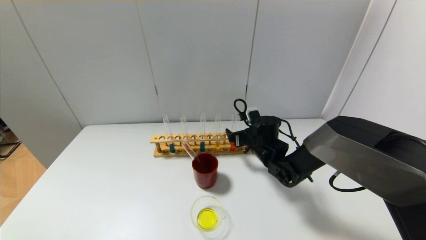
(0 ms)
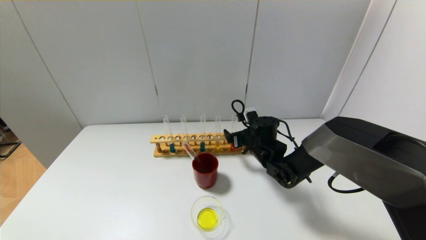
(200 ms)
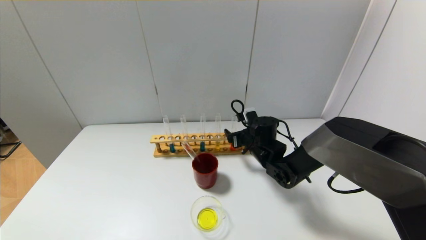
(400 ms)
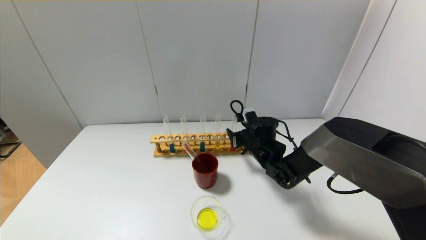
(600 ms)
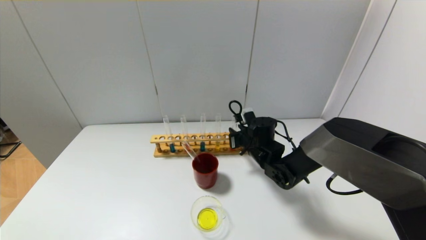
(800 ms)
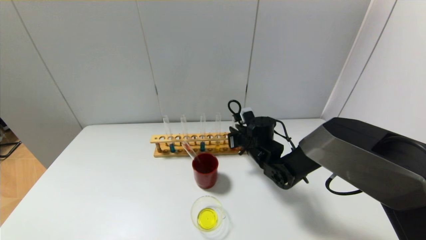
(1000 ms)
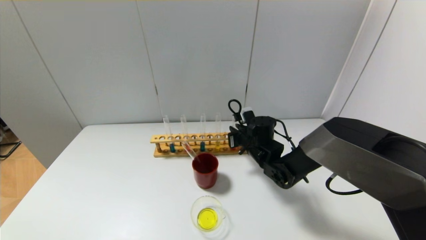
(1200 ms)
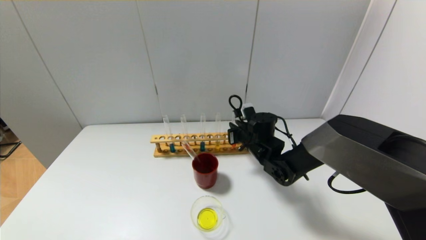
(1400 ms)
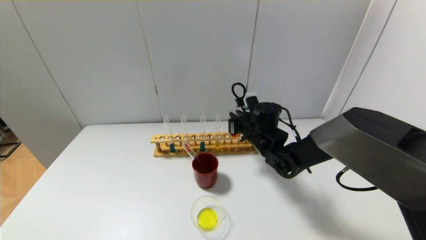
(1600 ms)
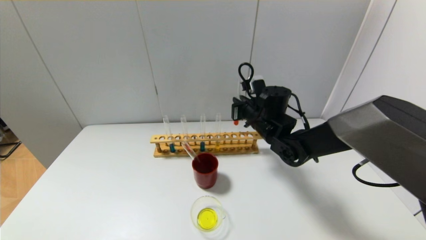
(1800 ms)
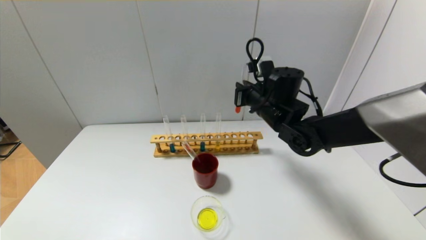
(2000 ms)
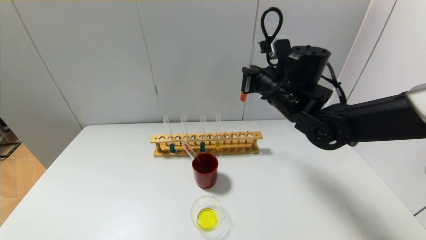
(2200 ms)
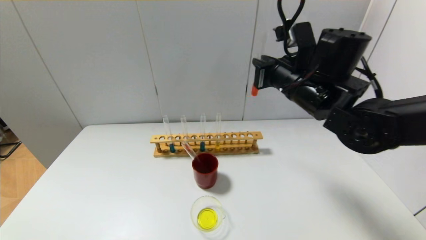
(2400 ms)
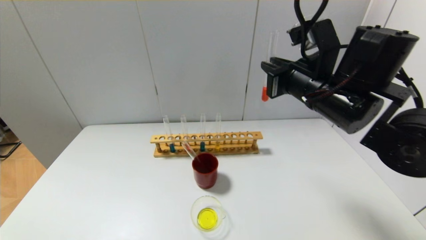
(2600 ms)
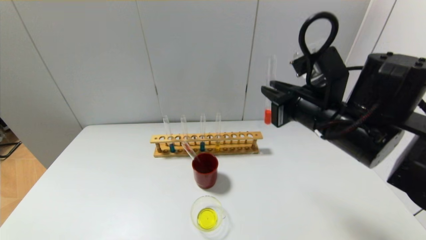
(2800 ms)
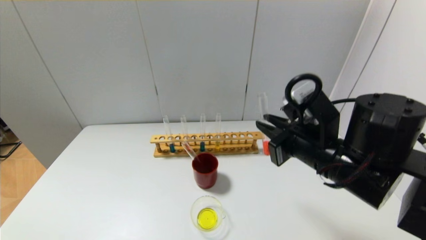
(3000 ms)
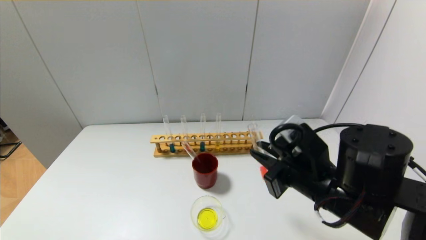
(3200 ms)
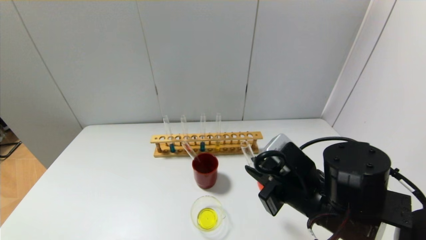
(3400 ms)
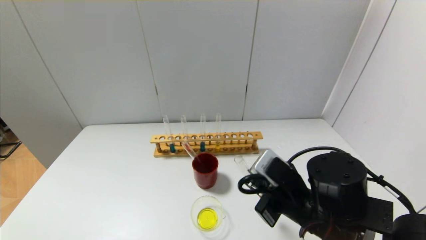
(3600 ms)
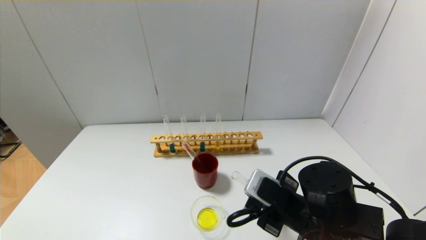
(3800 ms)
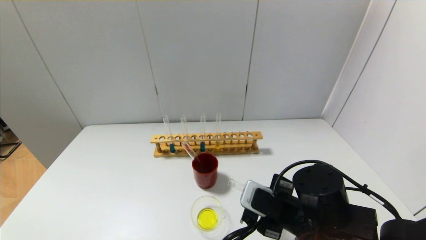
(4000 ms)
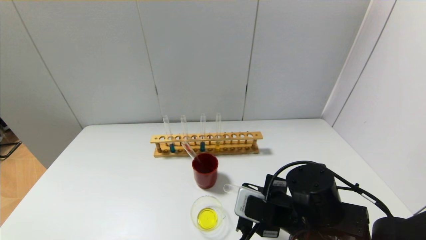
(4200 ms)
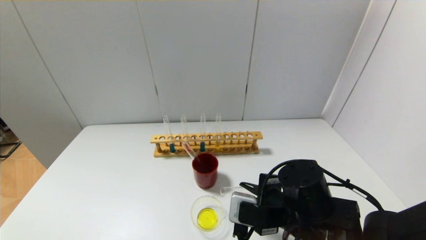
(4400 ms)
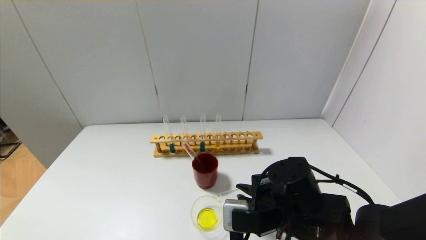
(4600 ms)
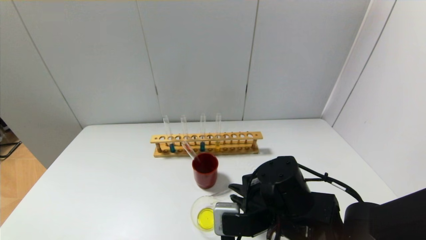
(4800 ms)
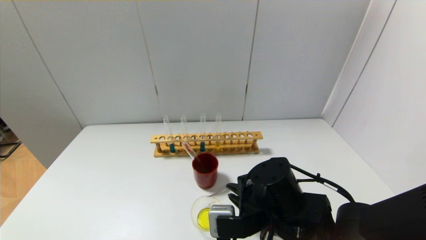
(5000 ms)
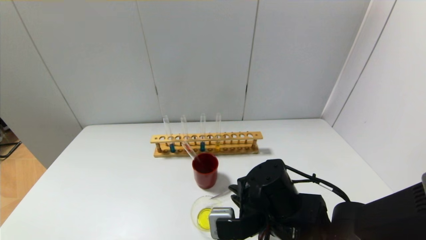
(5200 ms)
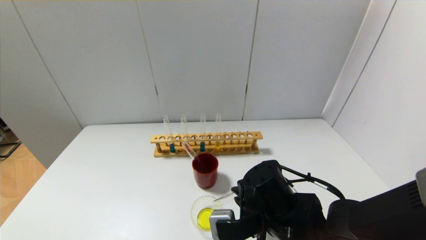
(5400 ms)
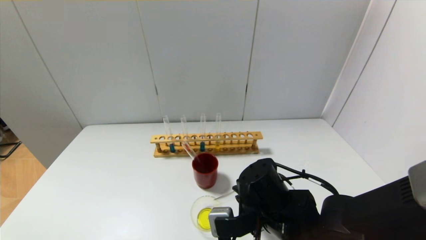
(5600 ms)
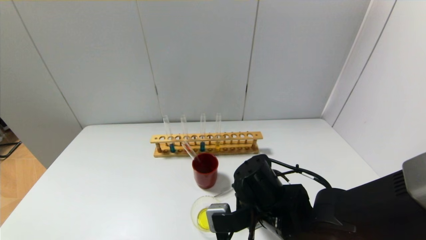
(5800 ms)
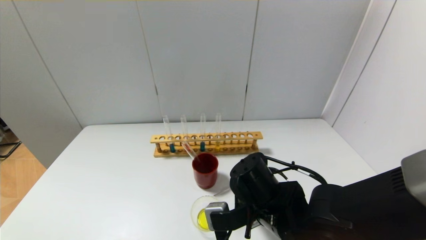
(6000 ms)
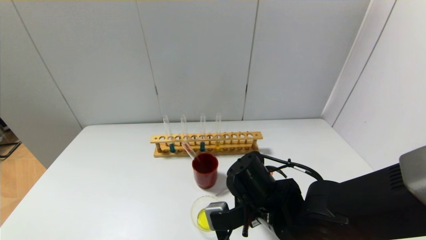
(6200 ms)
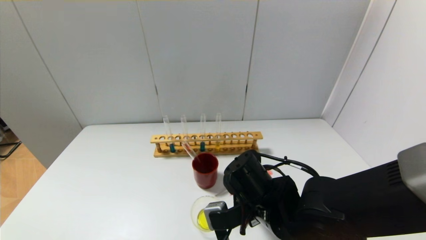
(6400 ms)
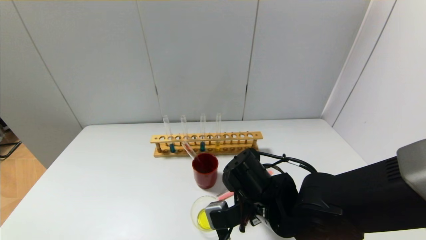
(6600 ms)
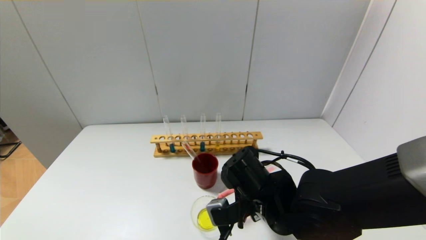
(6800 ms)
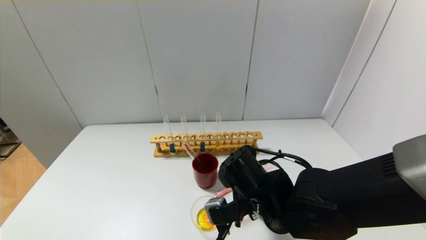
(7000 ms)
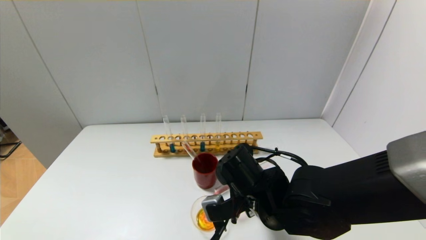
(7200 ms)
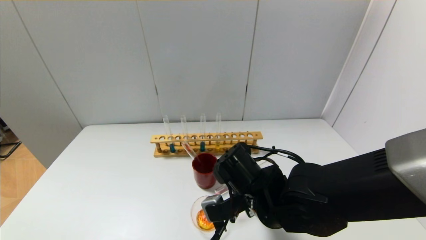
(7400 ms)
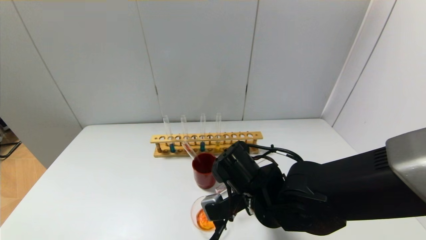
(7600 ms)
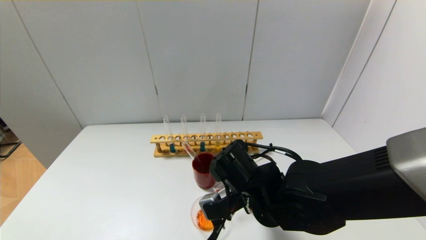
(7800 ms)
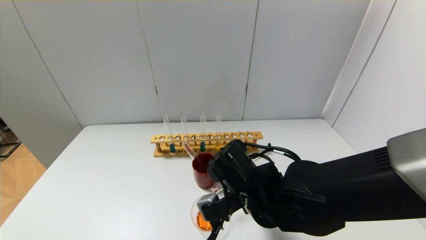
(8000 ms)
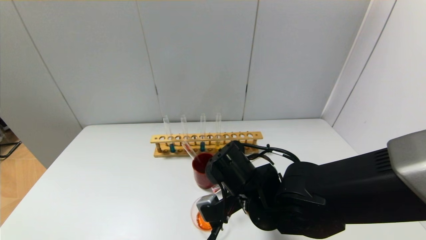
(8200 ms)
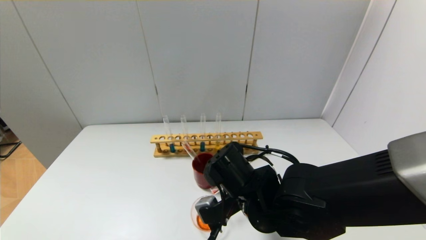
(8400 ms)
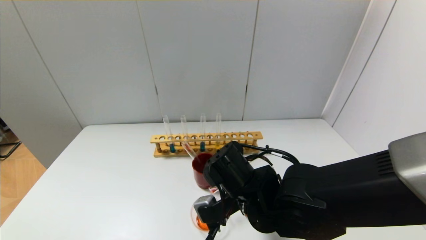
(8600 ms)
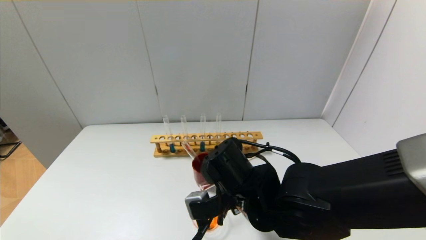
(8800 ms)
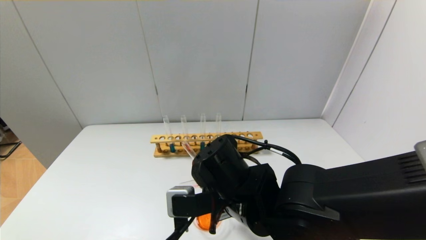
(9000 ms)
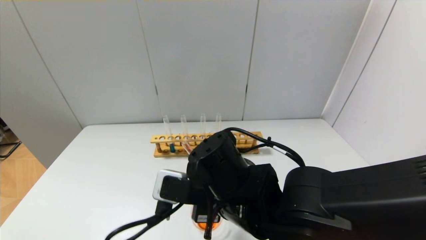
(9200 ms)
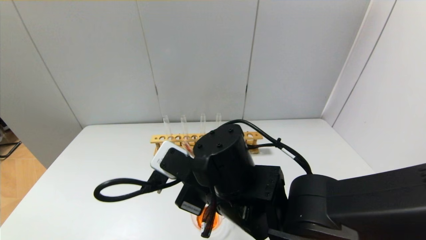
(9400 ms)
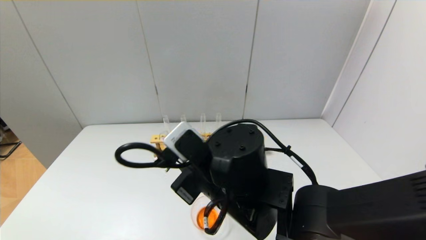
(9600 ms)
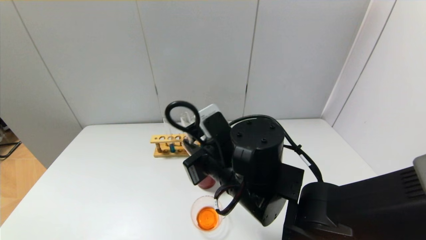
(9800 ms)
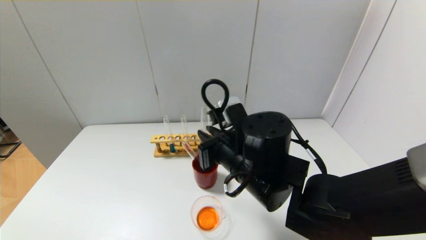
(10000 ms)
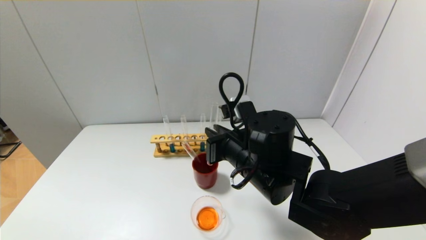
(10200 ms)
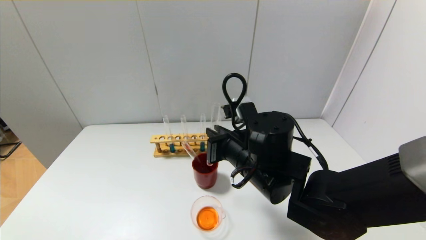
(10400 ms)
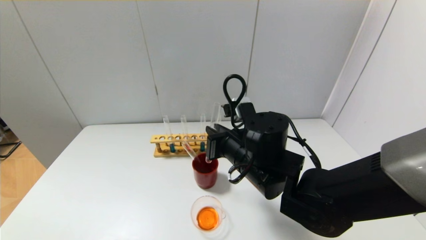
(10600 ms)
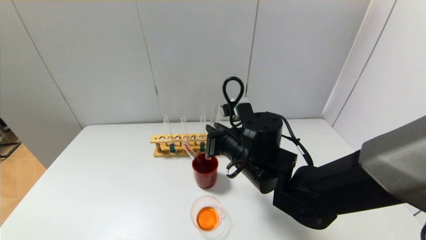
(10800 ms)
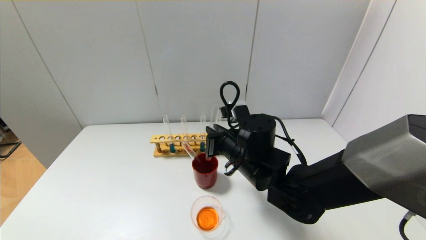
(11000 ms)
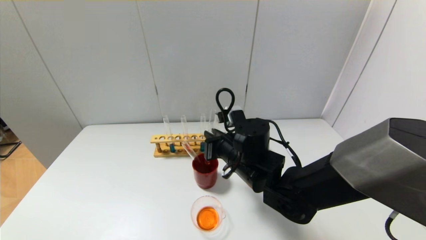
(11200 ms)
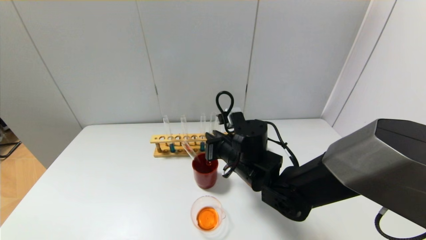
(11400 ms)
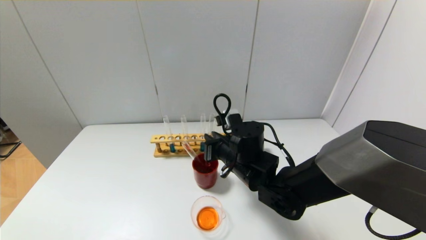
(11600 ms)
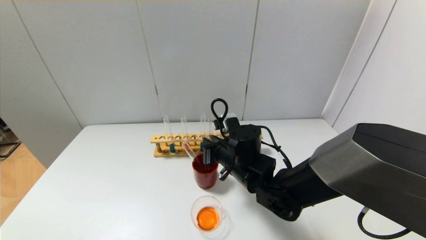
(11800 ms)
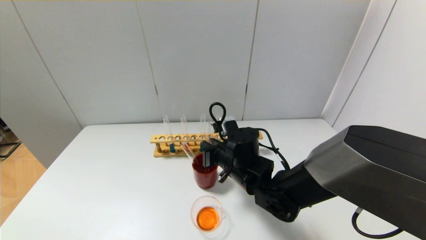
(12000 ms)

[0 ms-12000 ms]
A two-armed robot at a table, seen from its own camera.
Step, 1600 ms to 8400 ms: Pour the red reagent into the graduated cylinder with the right gripper.
0 ms to 1600 ms: The right gripper travels upward by approximately 5 cm, and closes.
1600 ms to 3000 ms: The right gripper shifts roughly 20 cm backward and upward.
3000 ms to 4400 ms: The right gripper travels downward by about 10 cm.
4400 ms to 6000 ms: The right gripper changes place by roughly 5 cm.
6000 ms to 7600 ms: The grippers stay close to where they were, moving slightly.
7600 ms to 9000 ms: The right gripper ends up roughly 5 cm from where it was.
9000 ms to 10400 ms: The right gripper changes place by roughly 5 cm.
10400 ms to 12000 ms: The right gripper heads downward and forward, covering approximately 10 cm.

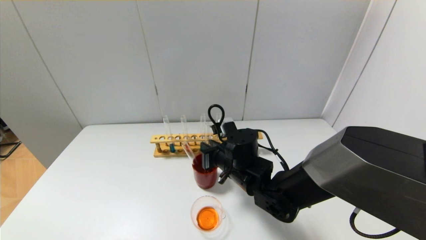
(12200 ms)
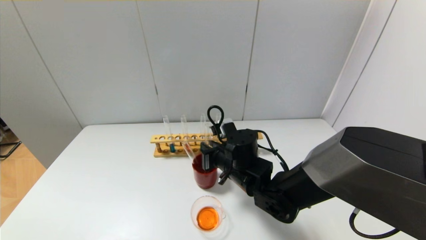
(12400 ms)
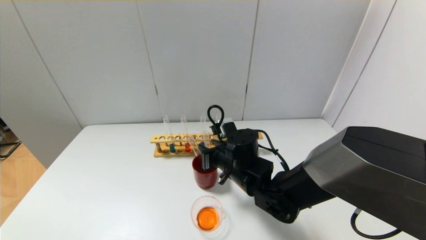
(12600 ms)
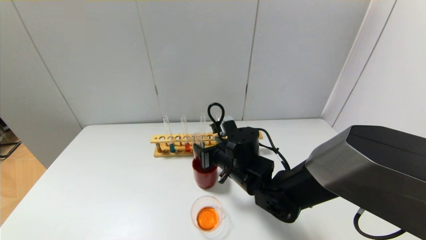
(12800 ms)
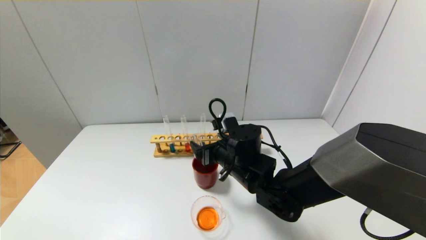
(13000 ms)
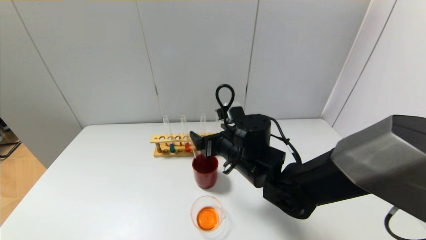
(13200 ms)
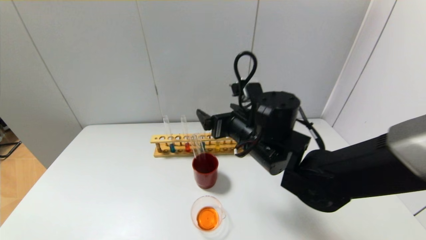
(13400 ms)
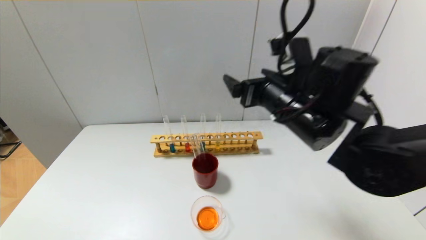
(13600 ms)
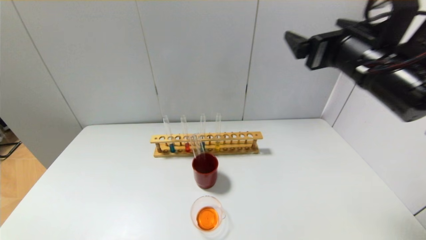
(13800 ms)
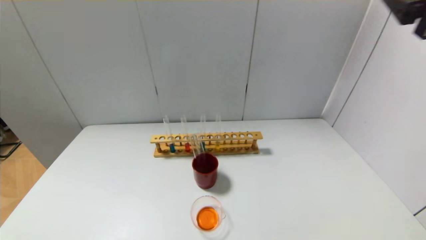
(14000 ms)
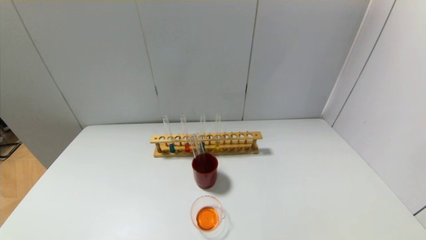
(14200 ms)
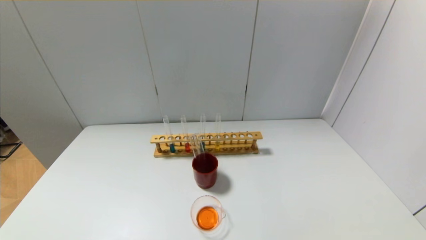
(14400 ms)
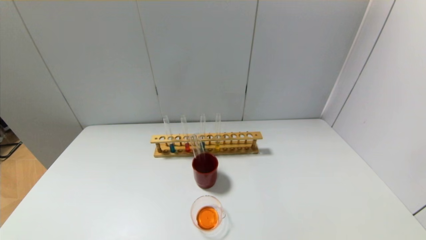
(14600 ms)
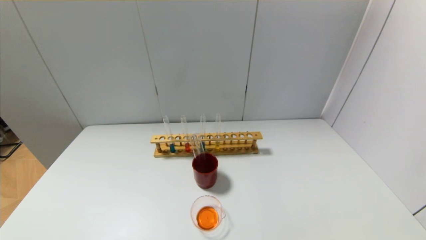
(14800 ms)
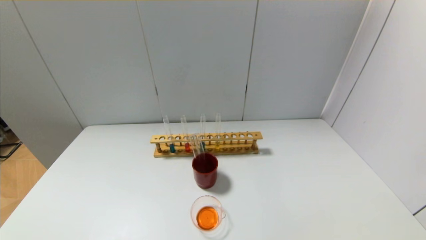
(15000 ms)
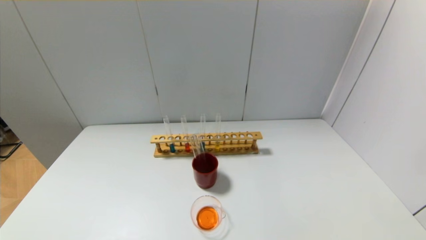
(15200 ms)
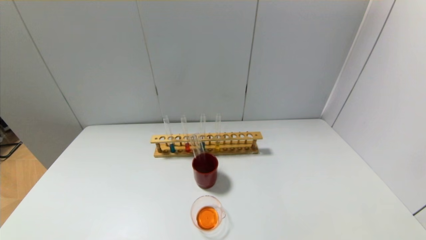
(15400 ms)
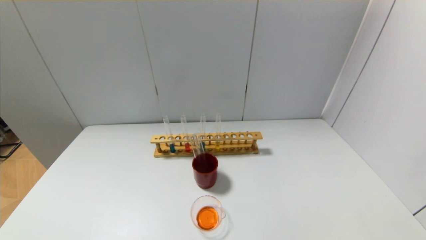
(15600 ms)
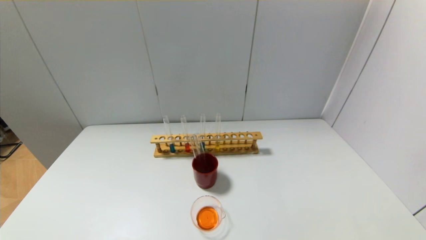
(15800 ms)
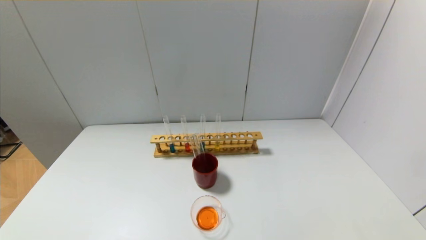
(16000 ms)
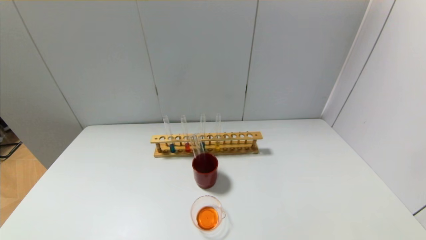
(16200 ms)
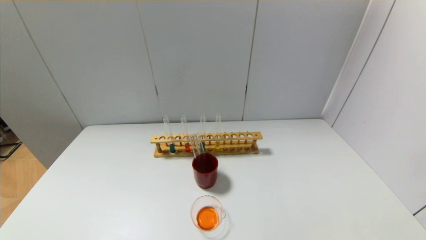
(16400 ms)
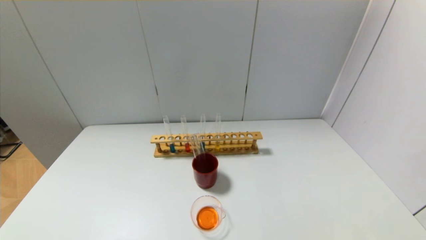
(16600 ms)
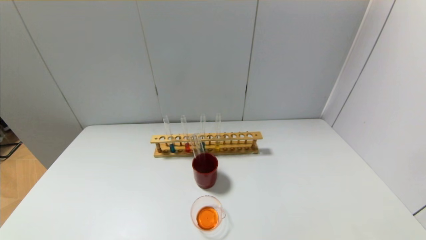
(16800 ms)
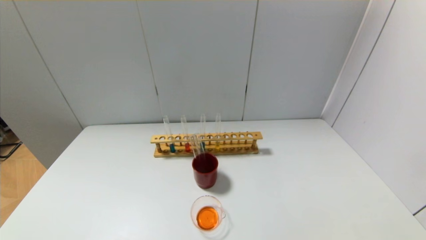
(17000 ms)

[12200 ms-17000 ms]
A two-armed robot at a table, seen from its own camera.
12200 ms to 13800 ms: The right gripper shifts roughly 30 cm upward and to the right, and opens its fingers.
13800 ms to 15400 ms: The right gripper moves backward, downward and to the right, some 35 cm.
